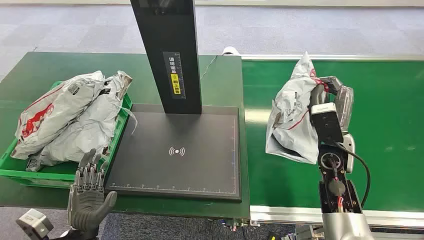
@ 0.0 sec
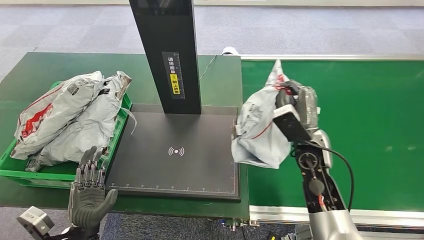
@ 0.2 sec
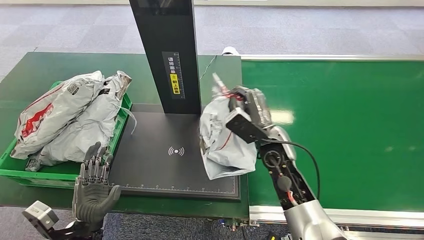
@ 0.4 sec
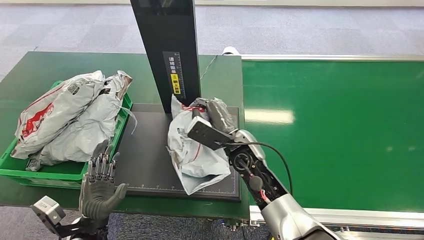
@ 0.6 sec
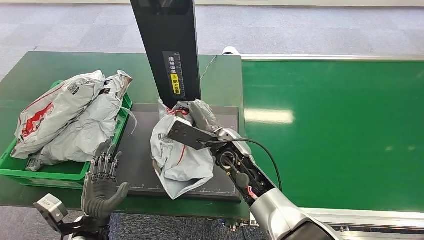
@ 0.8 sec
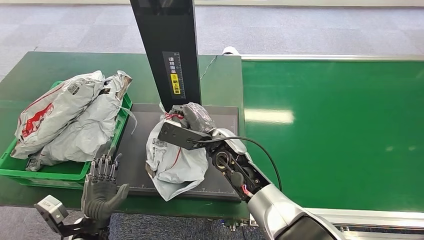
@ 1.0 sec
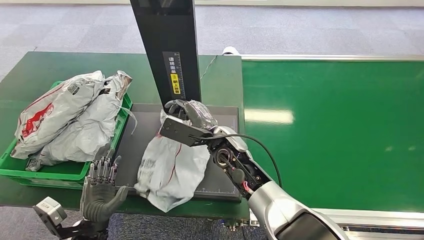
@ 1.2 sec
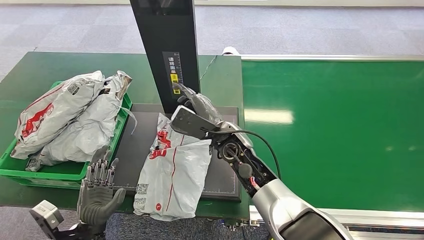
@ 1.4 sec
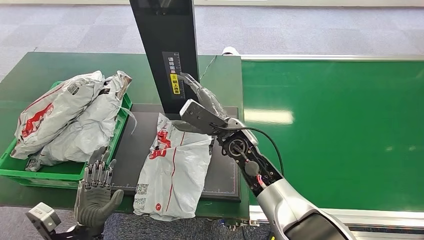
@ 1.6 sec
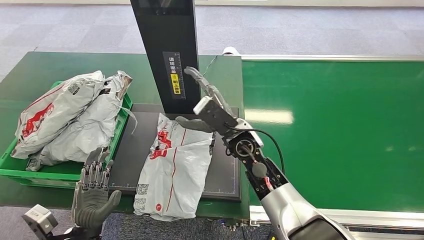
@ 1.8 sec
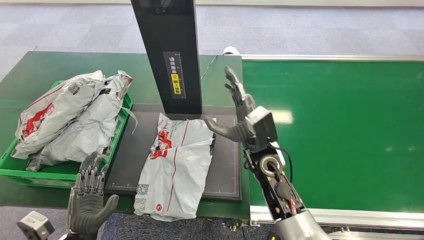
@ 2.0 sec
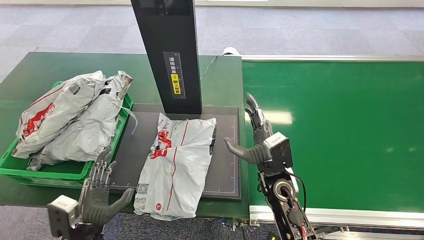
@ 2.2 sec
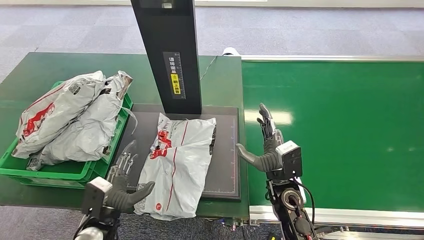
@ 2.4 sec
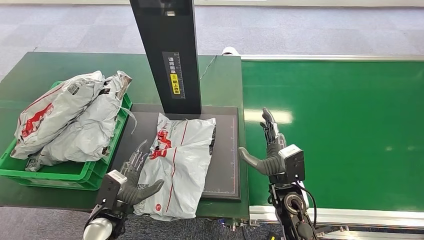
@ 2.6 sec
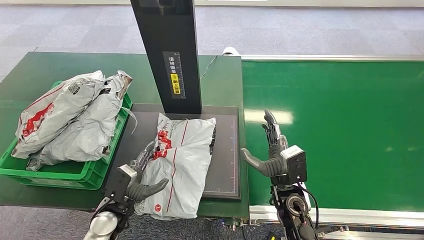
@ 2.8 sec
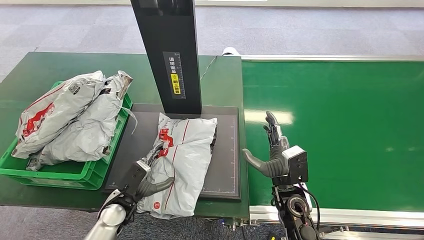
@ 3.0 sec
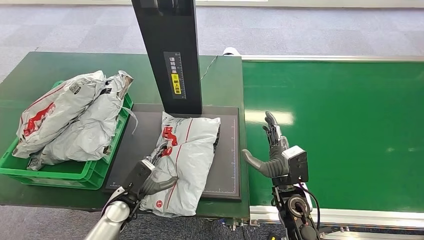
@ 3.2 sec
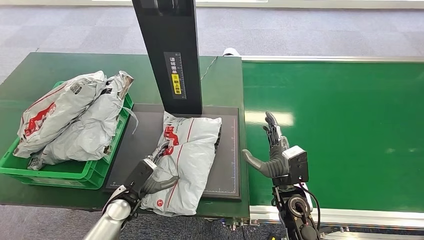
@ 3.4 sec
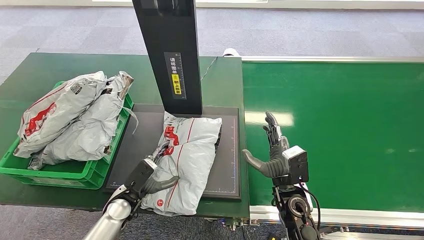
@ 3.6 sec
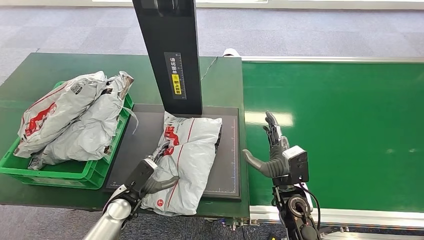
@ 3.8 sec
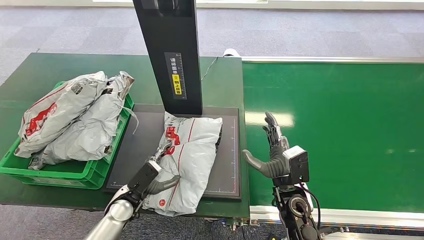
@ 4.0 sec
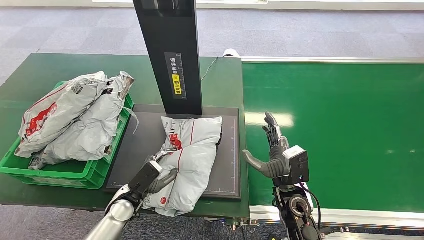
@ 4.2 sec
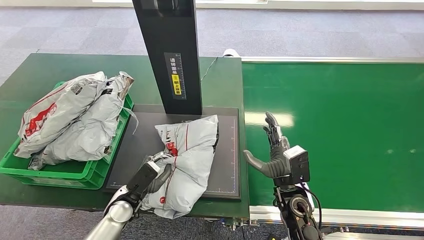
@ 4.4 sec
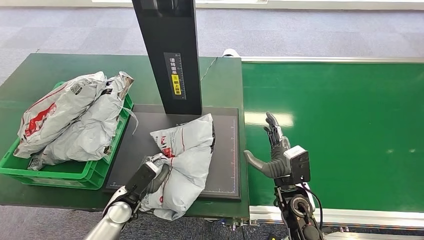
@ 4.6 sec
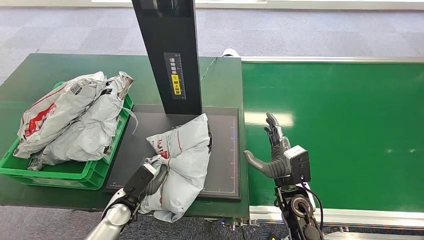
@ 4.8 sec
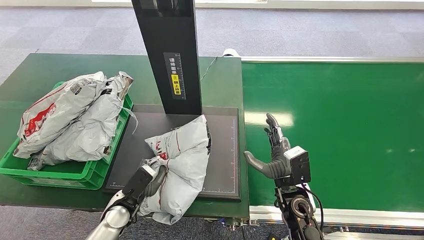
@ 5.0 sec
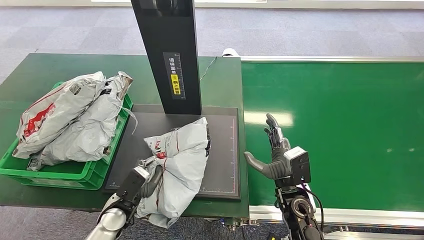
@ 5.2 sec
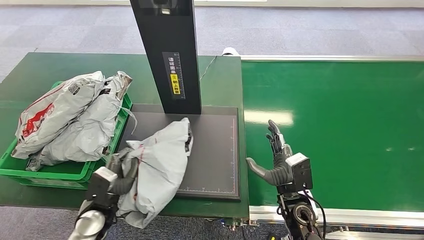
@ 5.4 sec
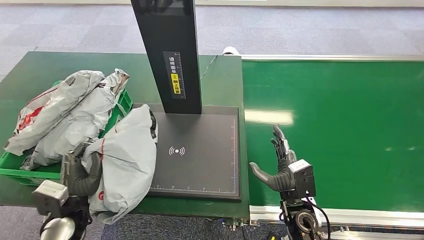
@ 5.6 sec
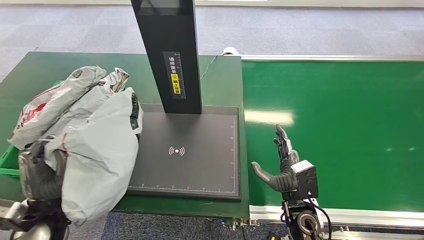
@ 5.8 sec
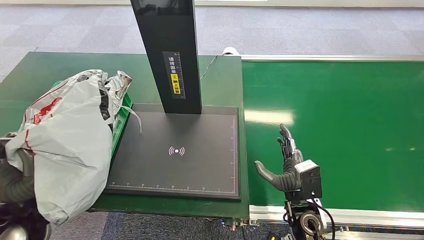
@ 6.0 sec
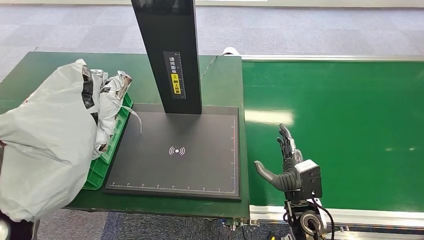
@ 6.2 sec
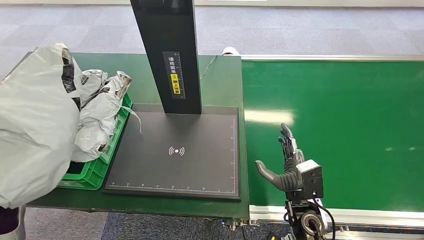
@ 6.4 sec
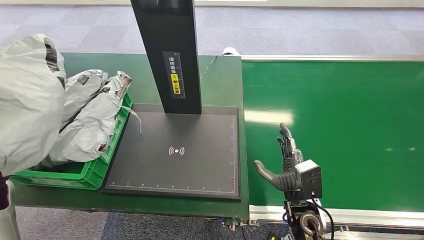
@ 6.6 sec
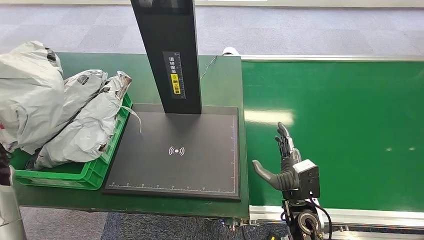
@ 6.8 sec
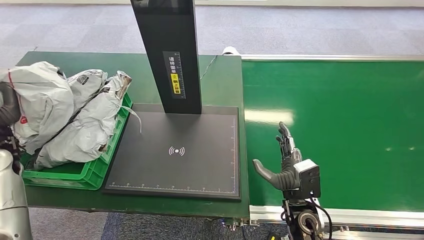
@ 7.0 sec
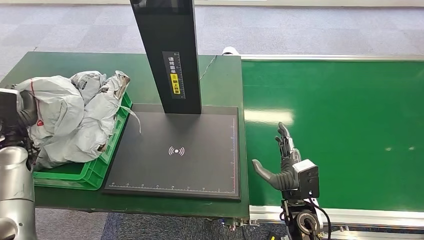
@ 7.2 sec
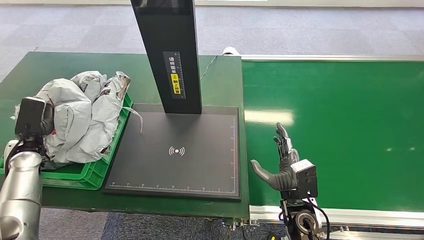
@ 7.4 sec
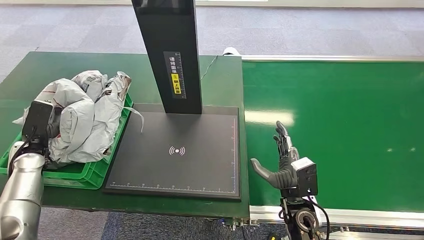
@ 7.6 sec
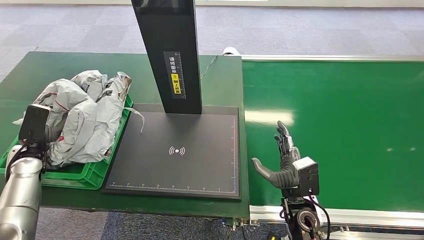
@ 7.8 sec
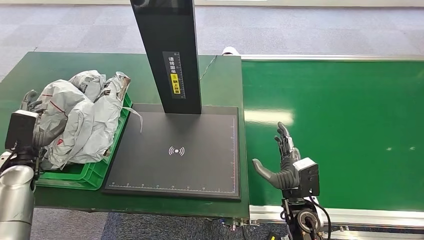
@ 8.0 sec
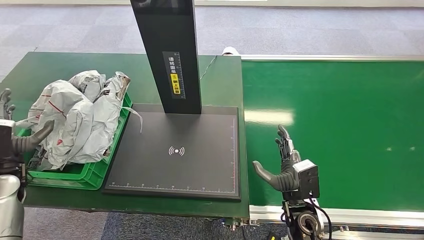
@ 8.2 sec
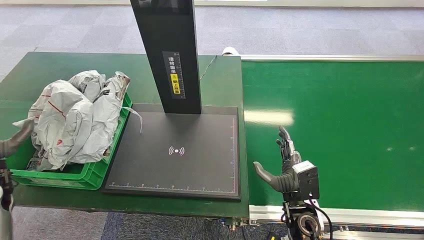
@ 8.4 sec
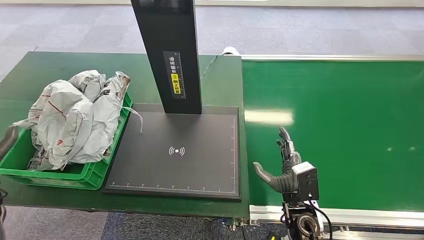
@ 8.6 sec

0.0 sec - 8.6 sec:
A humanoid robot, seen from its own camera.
Step, 2.0 sec - 2.2 sec: Place the package onto the inbound machine.
Step, 5.8 sec - 6.0 sec: Pick up the package from the inbound machine.
1.4 sec - 2.8 sec: The right hand travels to the right, backward and downward by approximately 20 cm. Meanwhile the left hand travels forward by some 5 cm.
2.8 sec - 4.4 sec: The hands move only a little.
5.8 sec - 7.2 sec: The left hand shifts about 20 cm to the left and forward.
7.2 sec - 8.6 sec: The left hand moves backward, about 10 cm.
